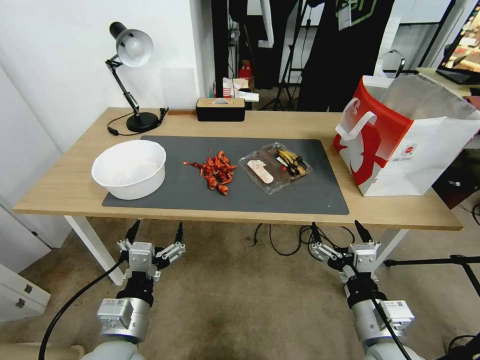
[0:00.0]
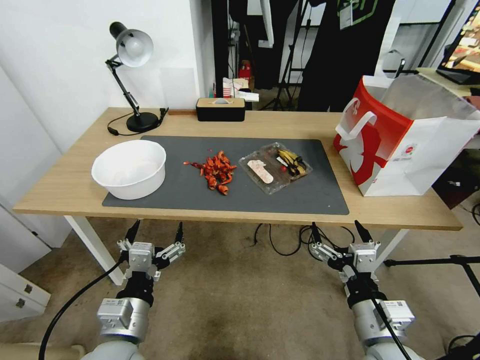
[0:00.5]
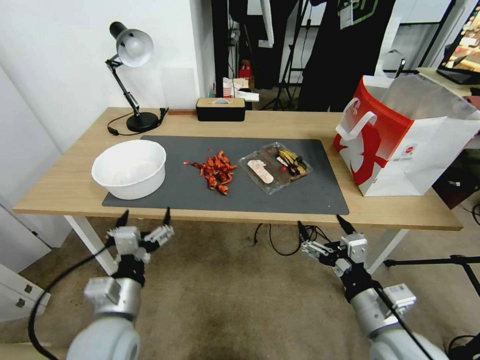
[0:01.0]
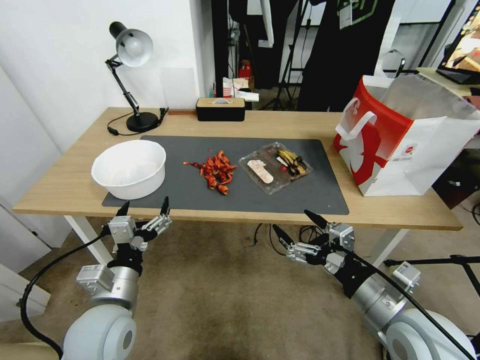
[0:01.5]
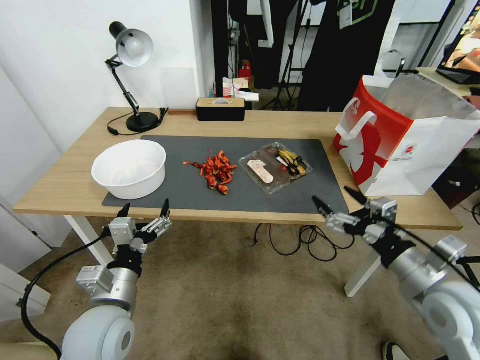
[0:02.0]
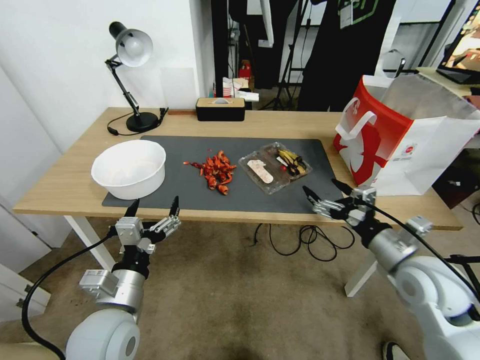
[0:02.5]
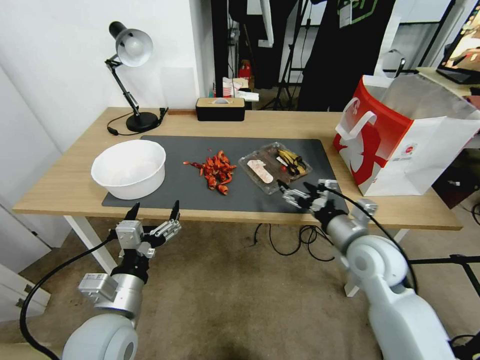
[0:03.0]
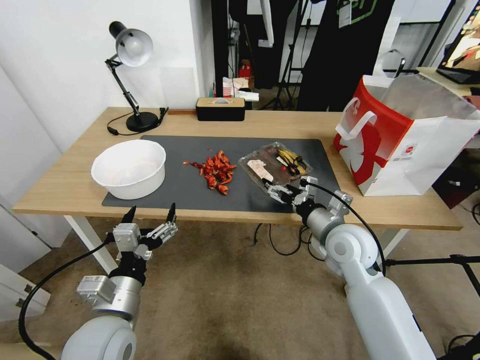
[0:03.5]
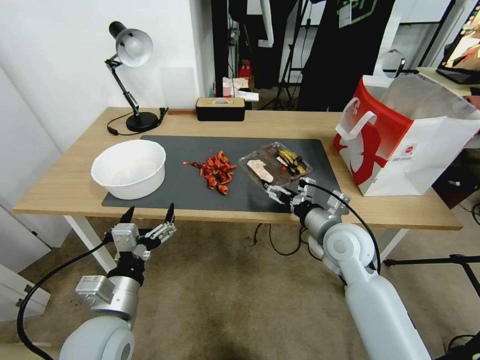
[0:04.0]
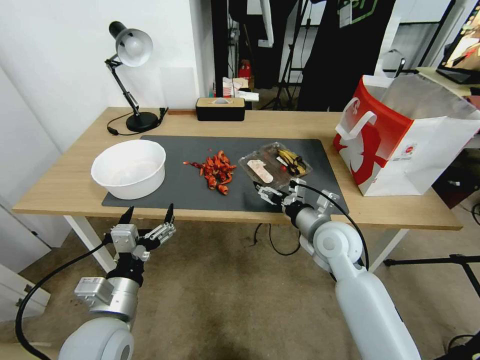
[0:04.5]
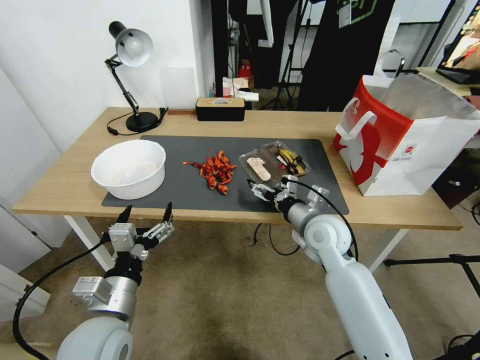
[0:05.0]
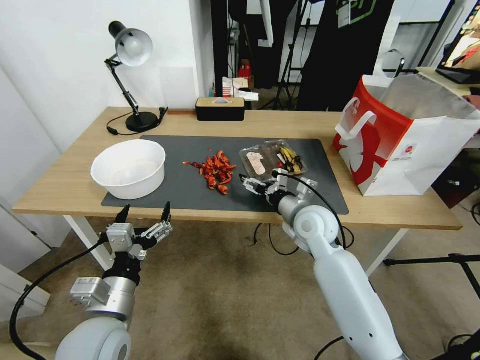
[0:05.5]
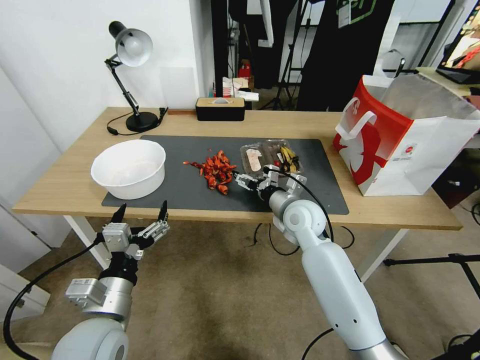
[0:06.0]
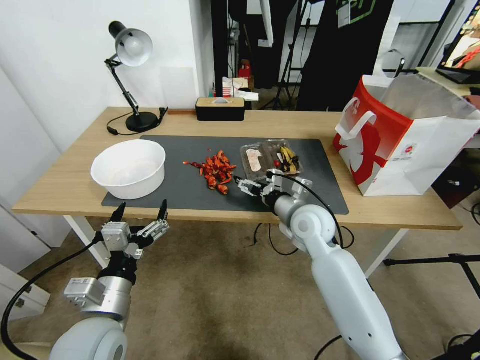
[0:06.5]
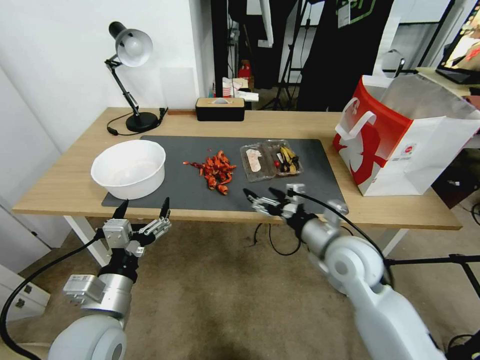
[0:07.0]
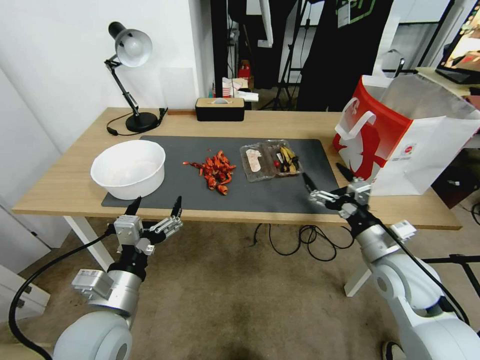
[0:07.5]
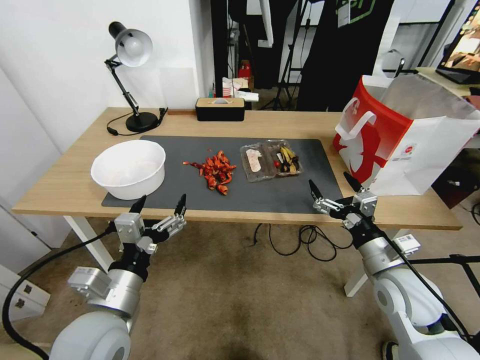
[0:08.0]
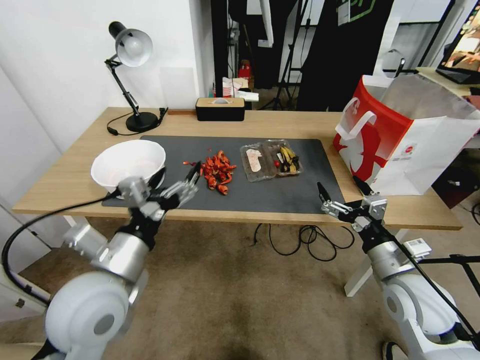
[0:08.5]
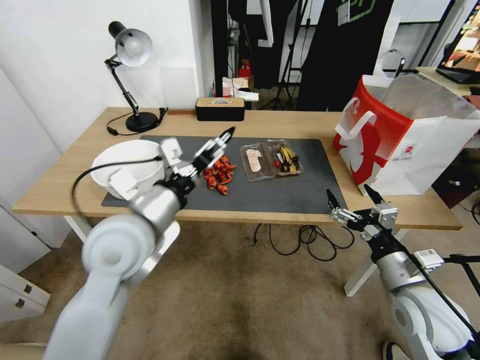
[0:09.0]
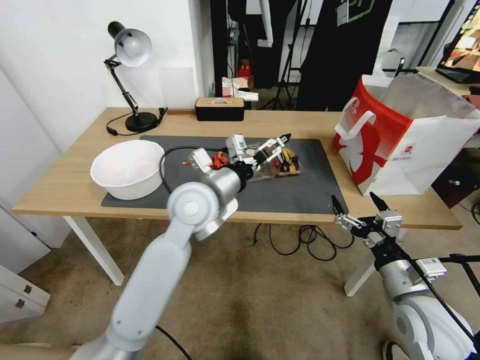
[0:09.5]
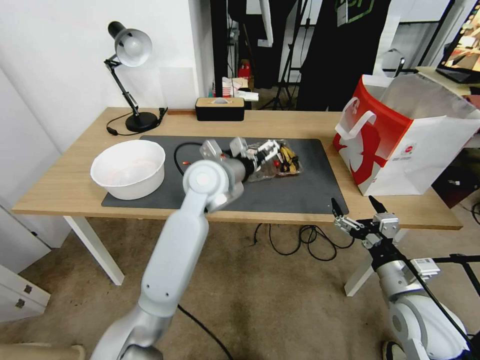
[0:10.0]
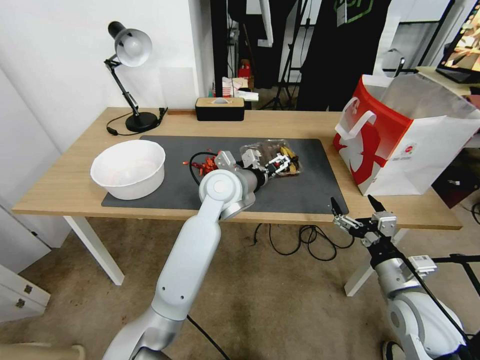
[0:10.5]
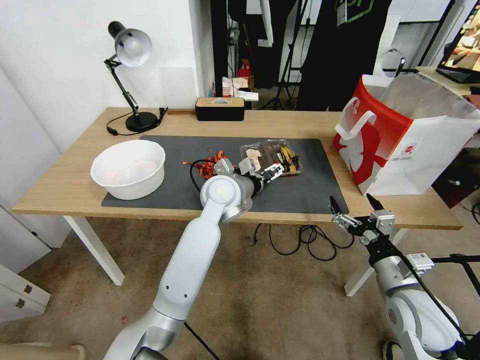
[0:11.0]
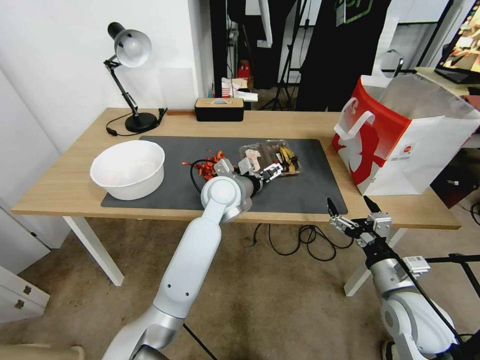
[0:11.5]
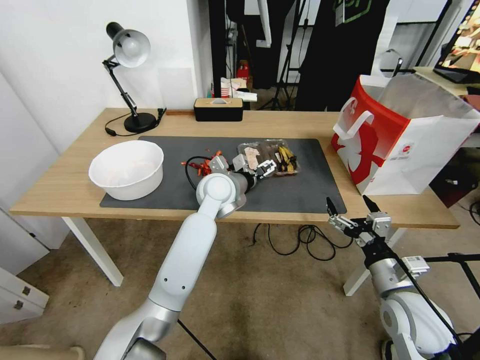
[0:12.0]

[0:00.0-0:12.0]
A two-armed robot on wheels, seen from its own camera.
0:02.0 to 0:04.0: The right gripper travels forward and to the left by some 20 cm.
0:04.0 to 0:06.0: The right gripper shifts about 10 cm forward and to the left.
0:06.0 to 0:08.0: The right gripper goes roughly 25 cm backward and to the right.
0:08.0 to 0:10.0: The left gripper is displaced forward and to the right by approximately 30 cm.
0:10.0 to 0:12.0: The left gripper goes roughly 10 cm downward.

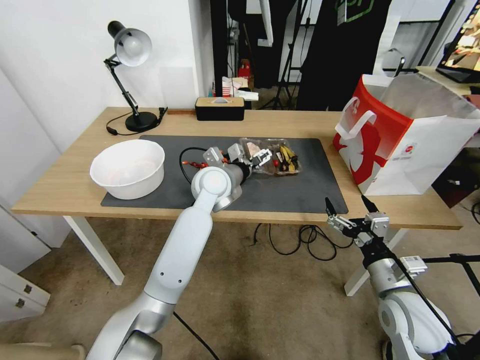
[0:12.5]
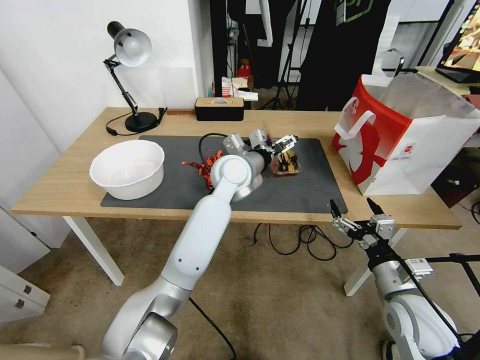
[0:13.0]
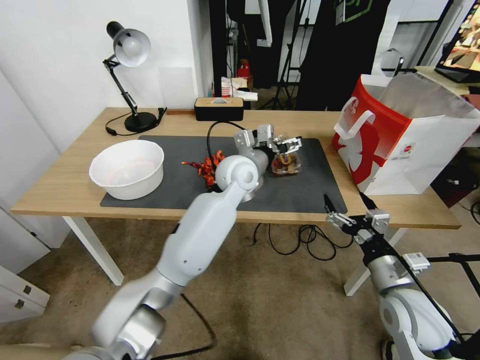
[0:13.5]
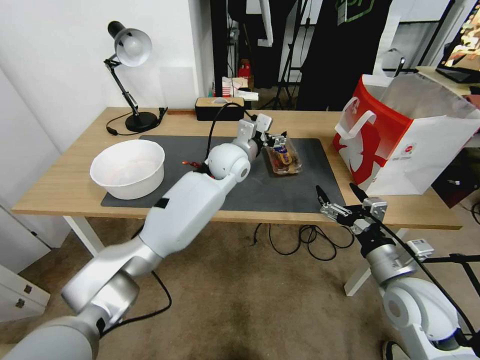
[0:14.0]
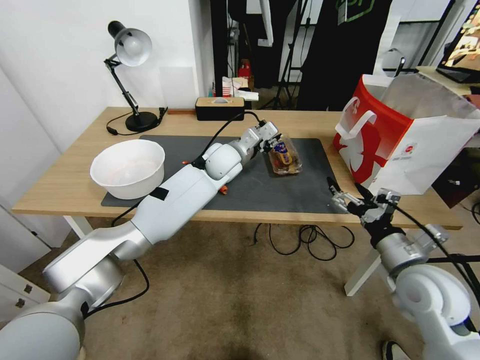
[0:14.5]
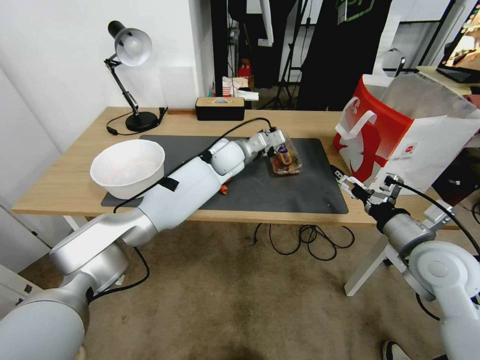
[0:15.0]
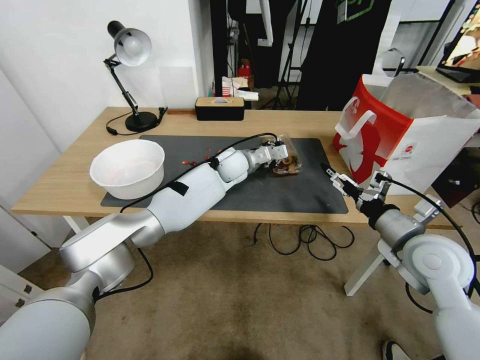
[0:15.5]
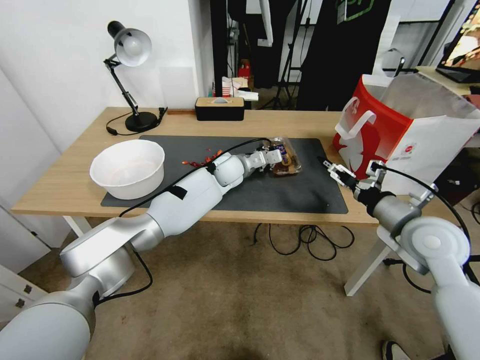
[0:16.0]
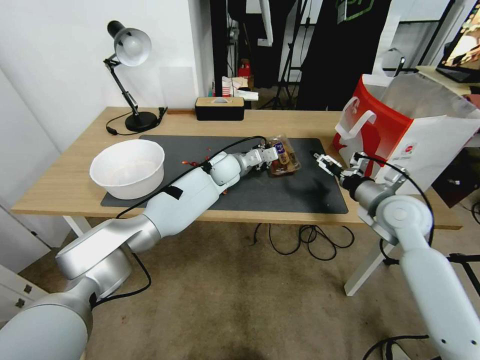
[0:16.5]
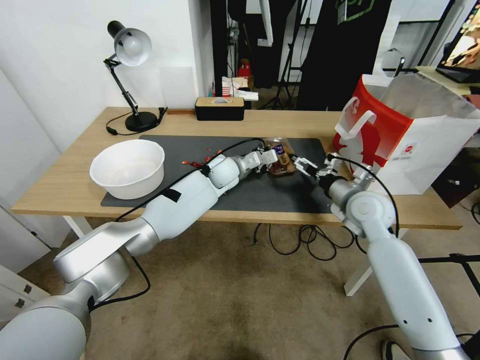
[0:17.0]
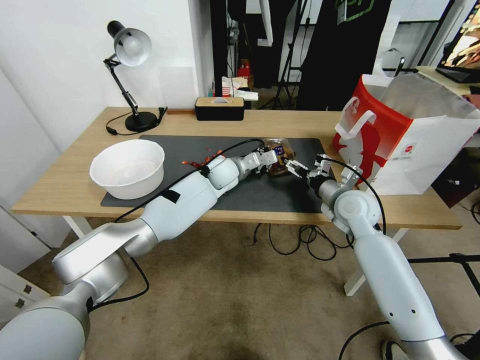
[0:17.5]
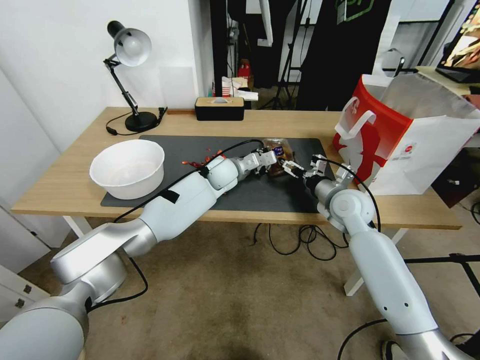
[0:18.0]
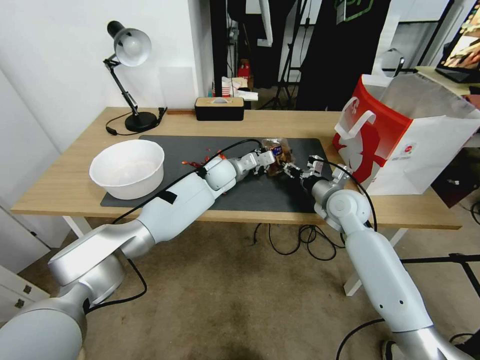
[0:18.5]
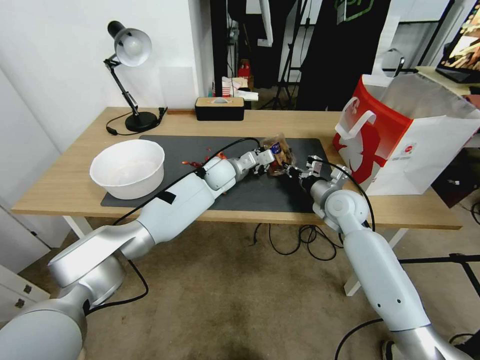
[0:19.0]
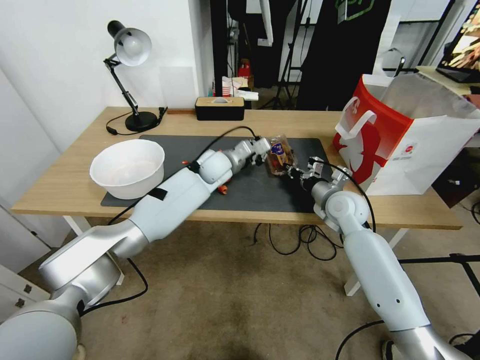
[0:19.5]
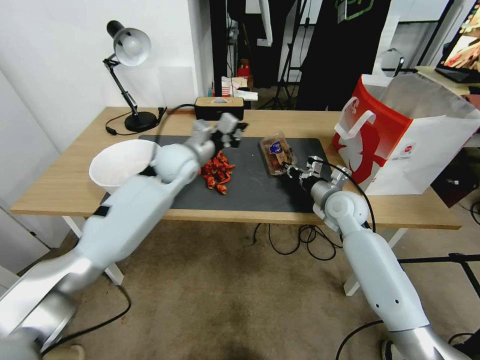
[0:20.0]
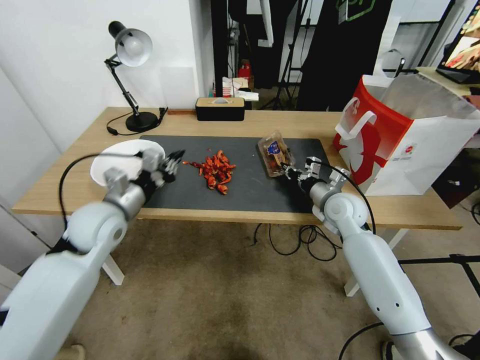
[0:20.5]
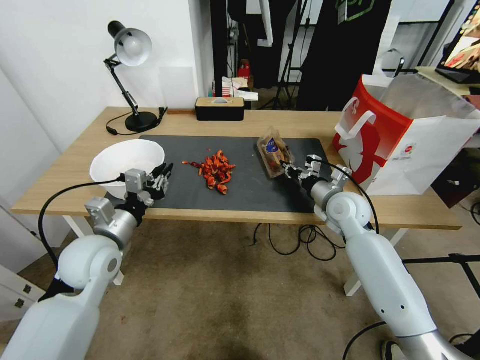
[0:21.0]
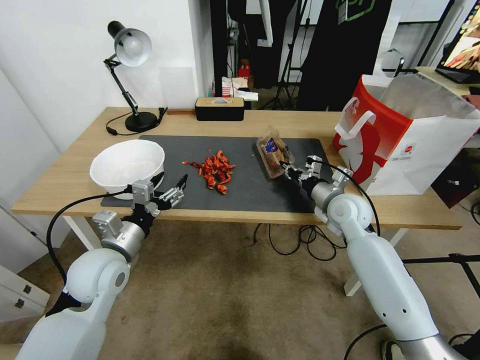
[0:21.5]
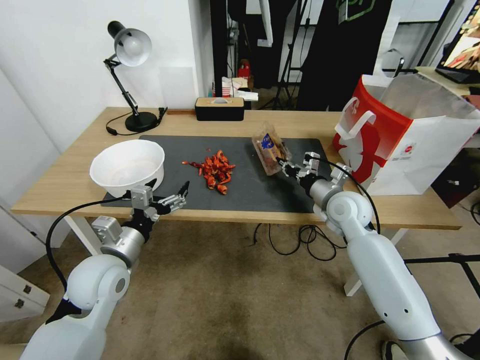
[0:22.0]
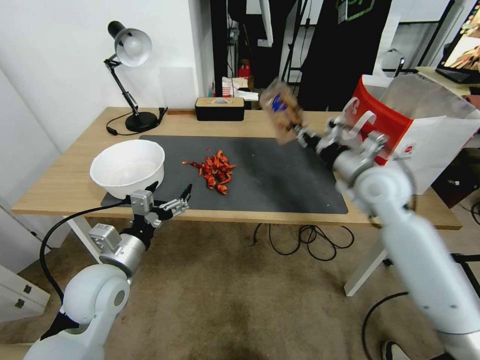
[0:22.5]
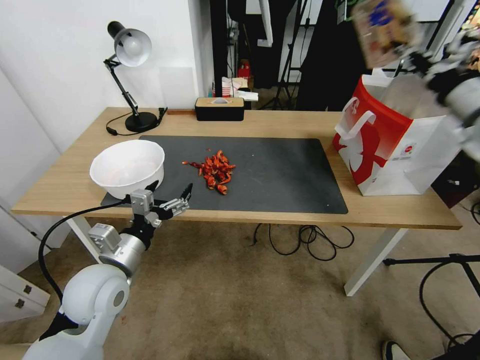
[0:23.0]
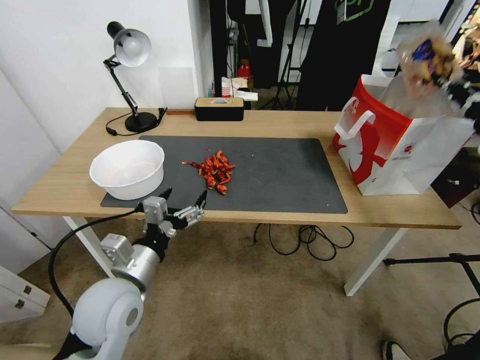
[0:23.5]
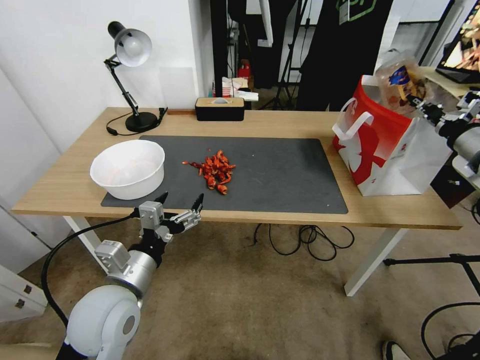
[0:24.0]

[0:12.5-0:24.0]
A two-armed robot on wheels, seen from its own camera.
0:12.5 to 0:14.5: The right gripper travels upward by some 5 cm; the left gripper goes approximately 5 cm forward, and closes its fingers.
0:14.5 to 0:16.5: The right gripper goes about 15 cm forward. Meanwhile the left gripper travels downward by roughly 5 cm.
0:16.5 to 0:18.5: The right gripper goes roughly 10 cm to the left, forward and downward, and closes.
0:18.5 to 0:20.0: The left gripper shifts about 15 cm to the left, upward and backward; the right gripper closes up.
0:20.0 to 0:22.0: The left gripper shifts some 25 cm backward and to the left, and opens its fingers.
0:22.0 to 0:24.0: The left gripper heads backward, covering some 5 cm. The right gripper goes roughly 30 cm to the right and upward.

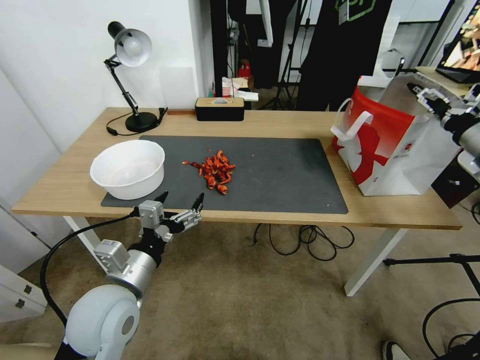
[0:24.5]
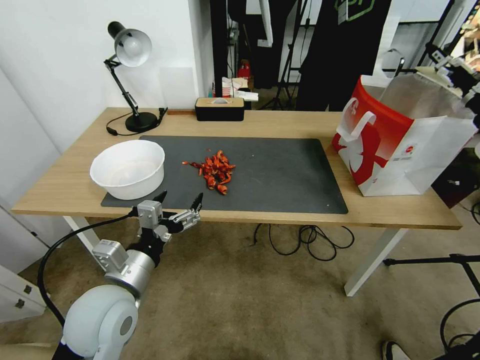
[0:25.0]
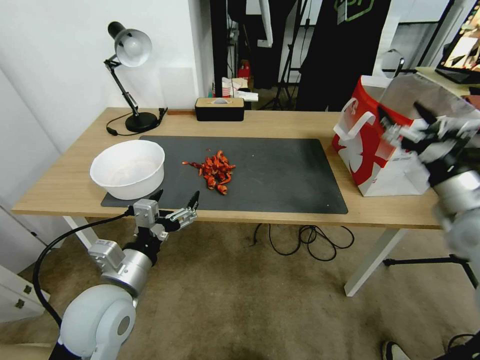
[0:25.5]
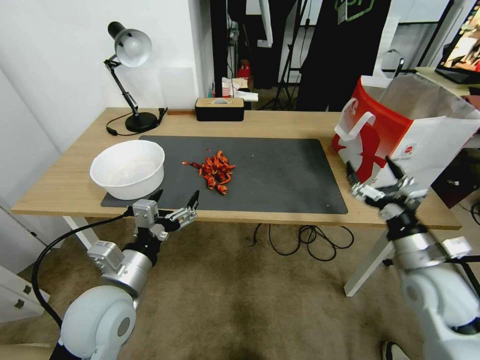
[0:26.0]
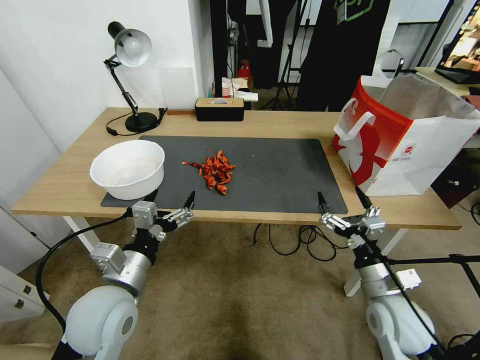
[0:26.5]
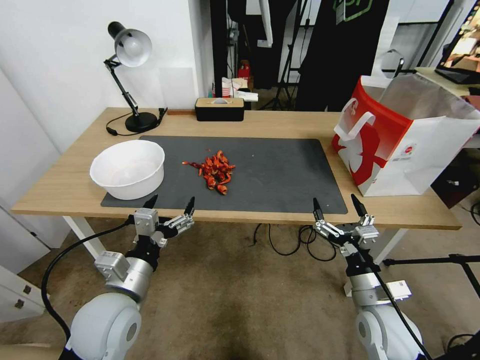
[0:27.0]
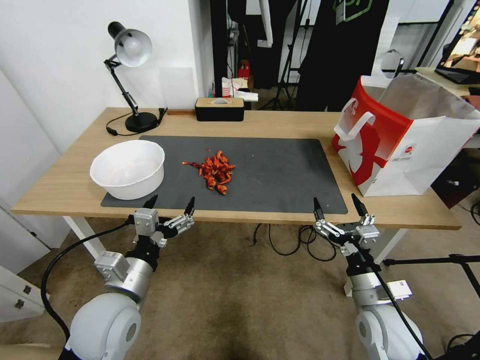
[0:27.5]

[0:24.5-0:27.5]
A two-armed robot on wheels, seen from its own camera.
0:24.5 to 0:26.0: The right gripper goes some 25 cm downward, backward and to the left.
0:26.0 to 0:27.5: The right gripper heads downward and to the left, covering some 10 cm.
